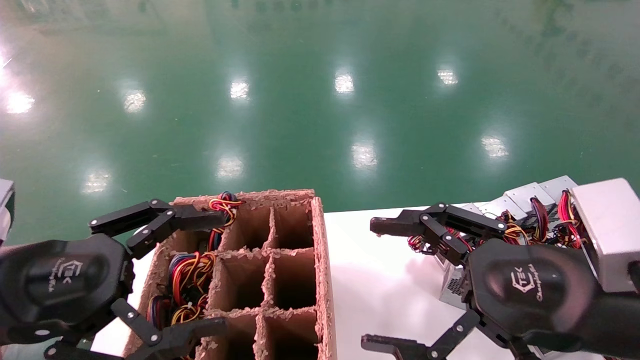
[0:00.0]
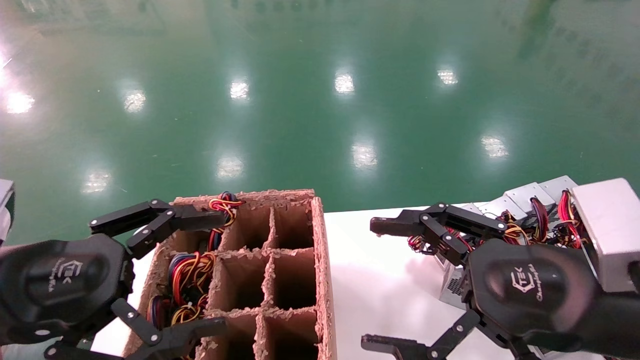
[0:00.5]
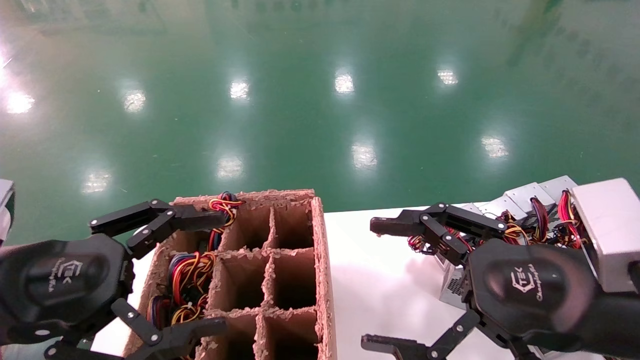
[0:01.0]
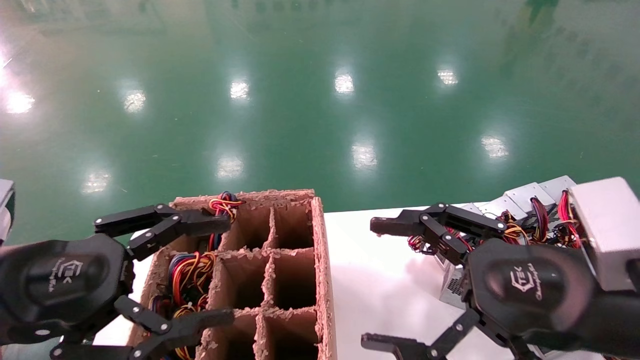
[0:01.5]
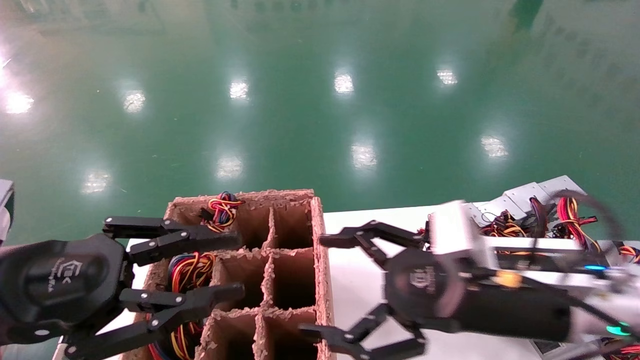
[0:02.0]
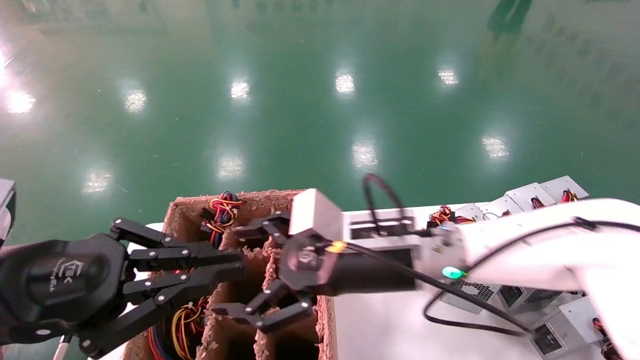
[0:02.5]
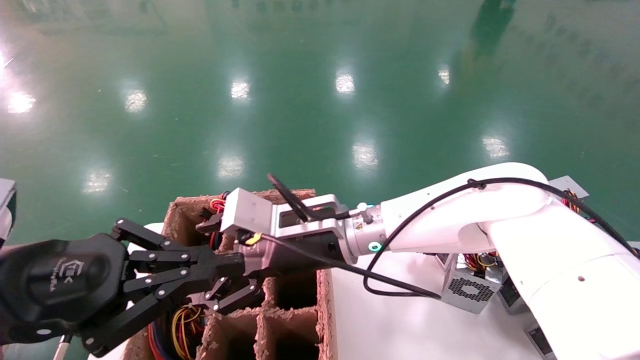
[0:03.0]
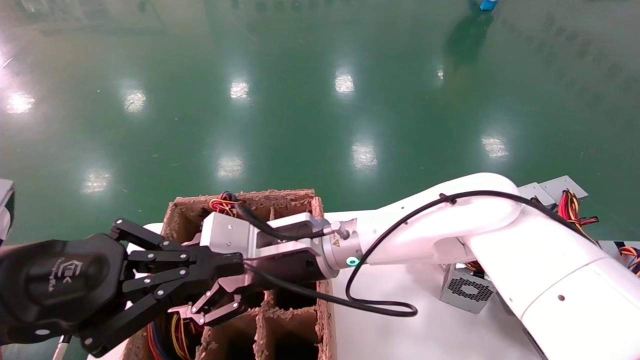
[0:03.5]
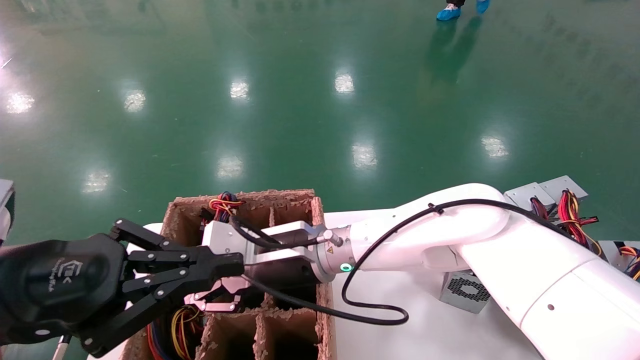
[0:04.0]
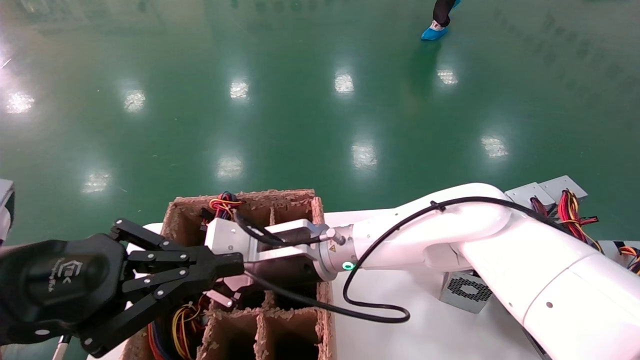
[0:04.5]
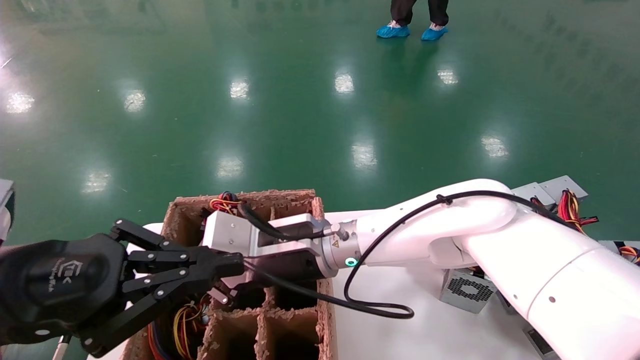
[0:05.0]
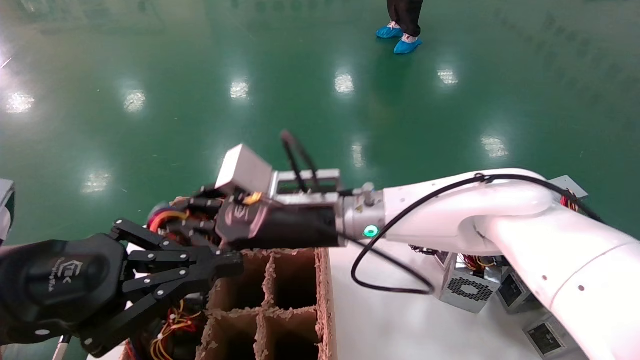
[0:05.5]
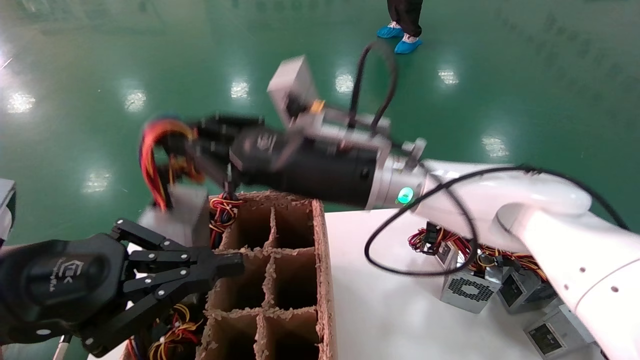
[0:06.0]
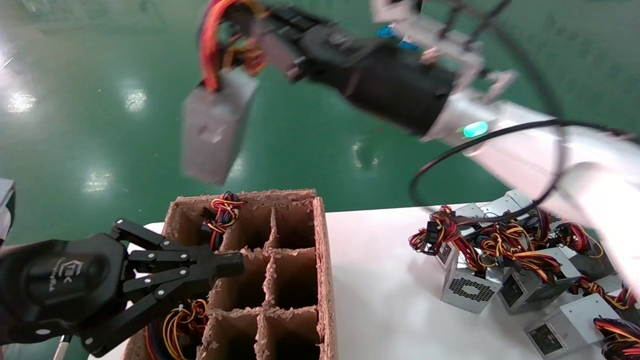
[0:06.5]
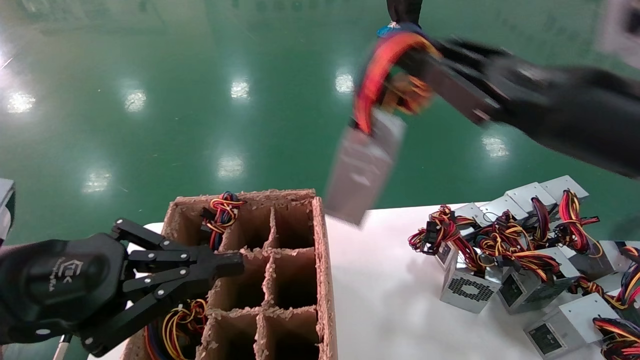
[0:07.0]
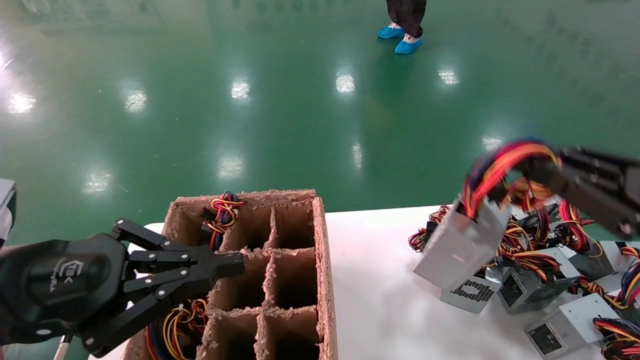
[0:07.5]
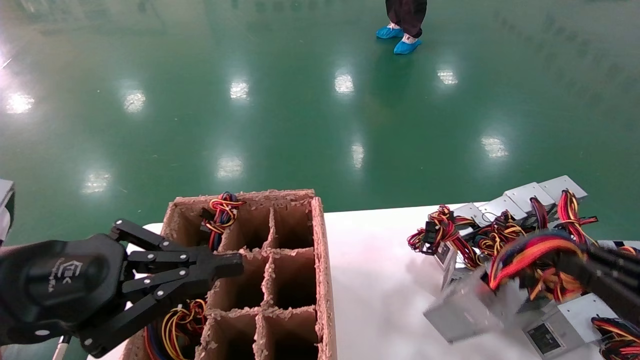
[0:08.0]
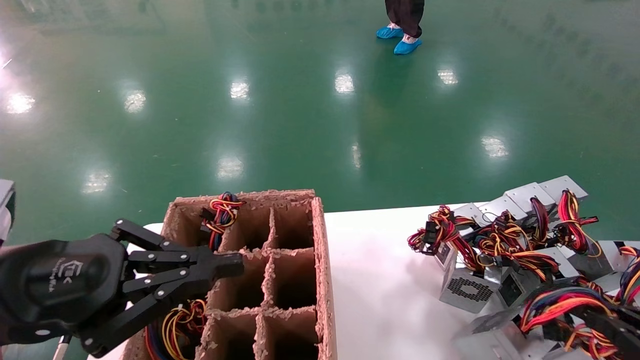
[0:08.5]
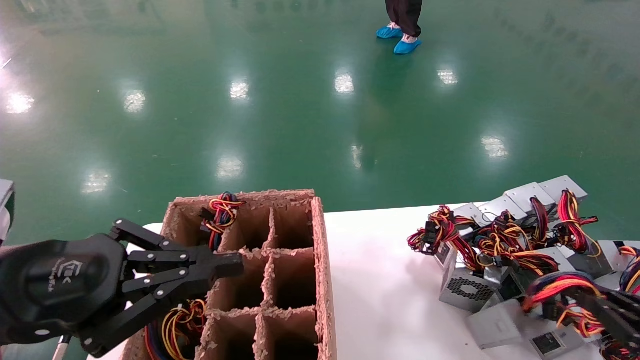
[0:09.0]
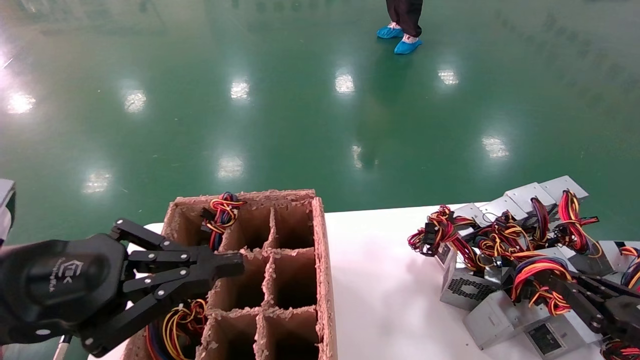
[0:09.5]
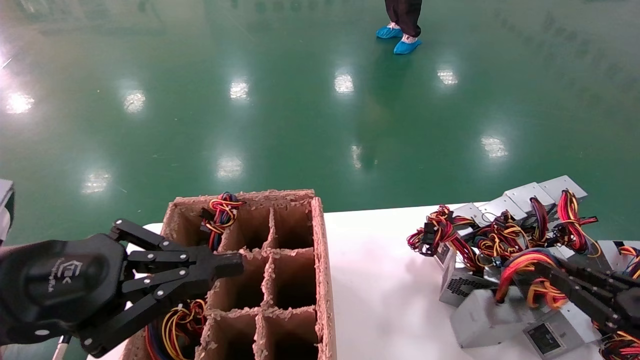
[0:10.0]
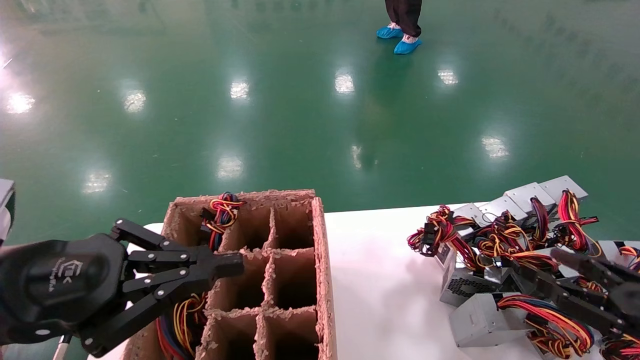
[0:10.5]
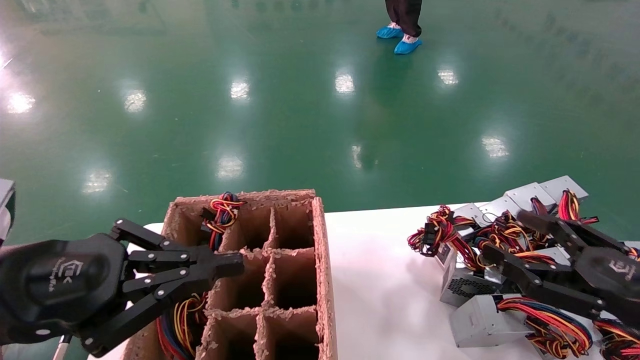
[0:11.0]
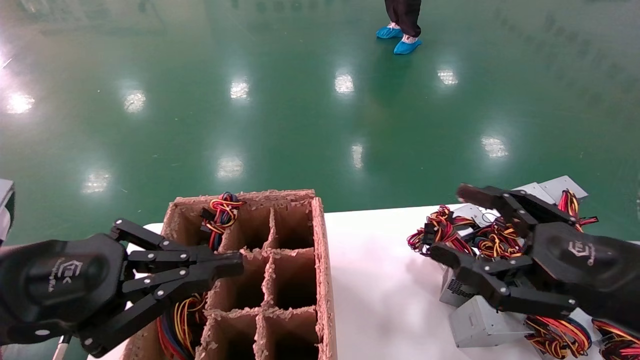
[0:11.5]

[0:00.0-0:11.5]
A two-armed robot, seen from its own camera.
Step, 0:02.0 to 0:04.5: Grab the main unit power supply from the containment box.
Step, 0:05.0 to 0:10.5: Place the main unit power supply in the designated area.
0:00.0 to 0:02.0: The right gripper travels forward and to the left by some 10 cm, while the left gripper closes its fingers.
0:02.0 to 0:04.0: The right gripper heads to the left and forward, covering about 25 cm, and closes its fingers. Meanwhile the left gripper closes.
0:04.0 to 0:06.0: The right gripper travels upward and to the right by roughly 15 cm, and closes up.
0:06.0 to 0:07.5: The right gripper goes approximately 35 cm to the right and backward.
0:07.5 to 0:09.5: The right gripper moves downward, some 15 cm.
0:09.5 to 0:11.5: The right gripper heads to the left and upward, covering approximately 15 cm, and opens its fingers.

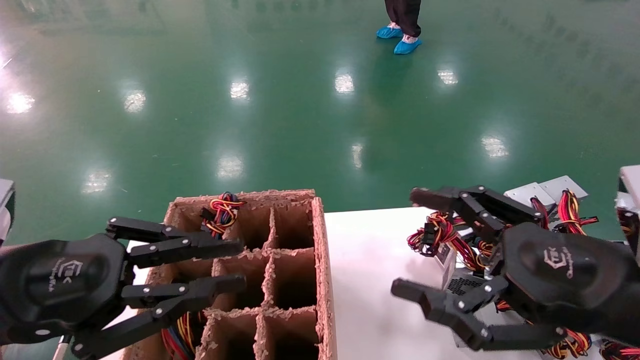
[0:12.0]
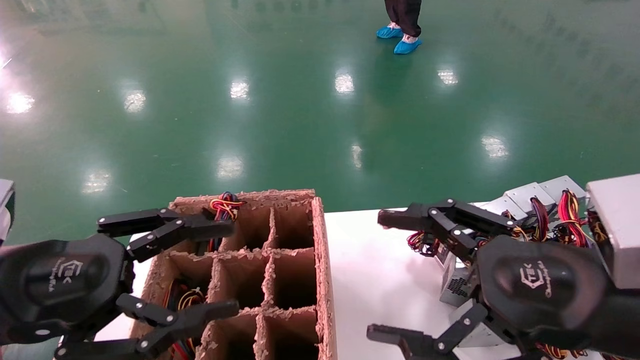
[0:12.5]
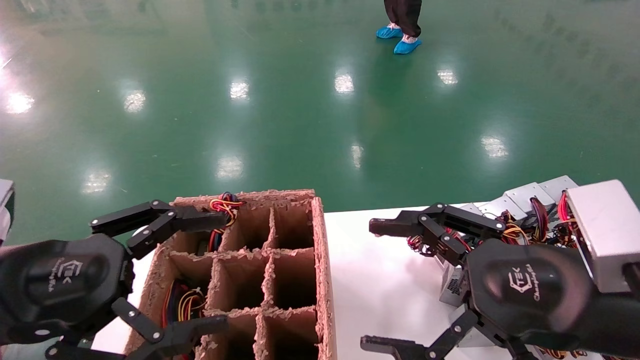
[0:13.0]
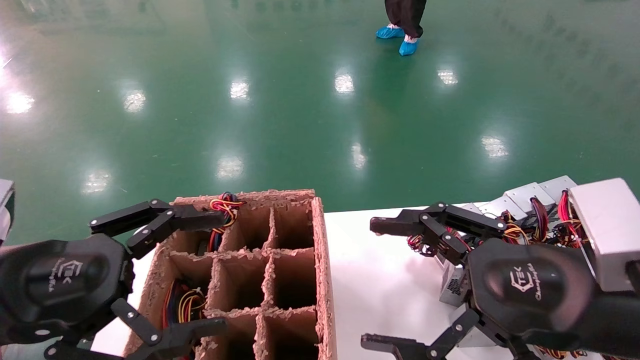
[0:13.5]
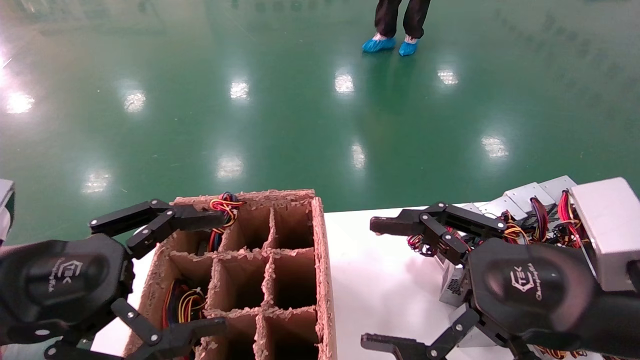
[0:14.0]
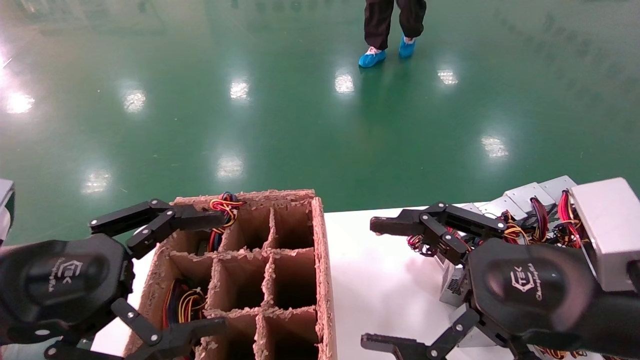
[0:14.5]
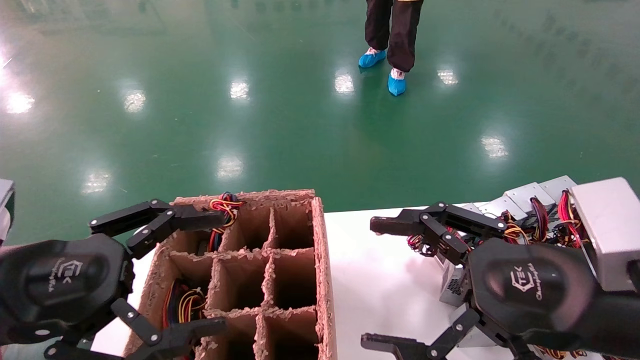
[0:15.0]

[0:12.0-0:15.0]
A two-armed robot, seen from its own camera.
0:12.0 to 0:13.5: The left gripper opens up.
0:13.5 to 0:15.0: Both grippers stay about where they are.
